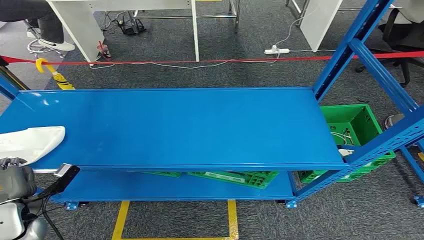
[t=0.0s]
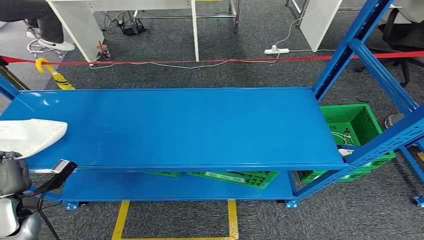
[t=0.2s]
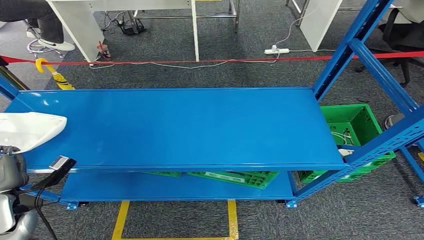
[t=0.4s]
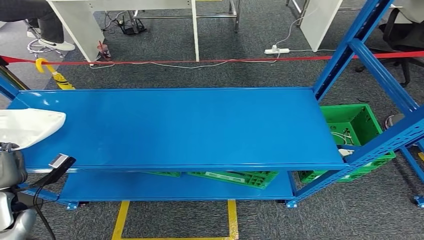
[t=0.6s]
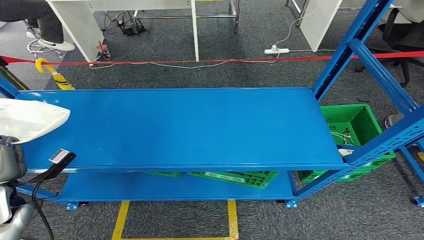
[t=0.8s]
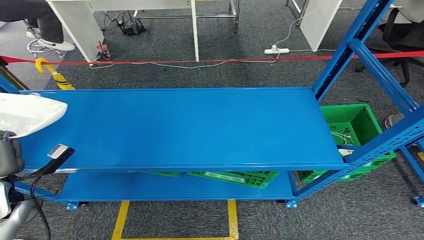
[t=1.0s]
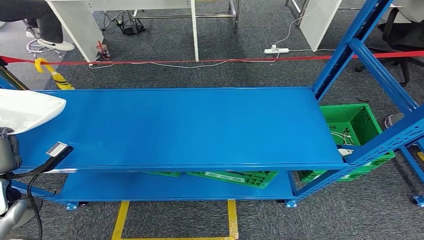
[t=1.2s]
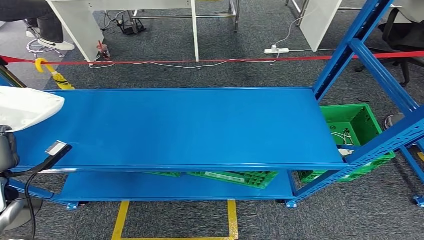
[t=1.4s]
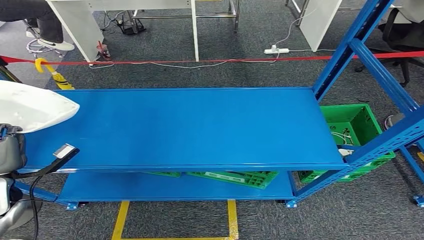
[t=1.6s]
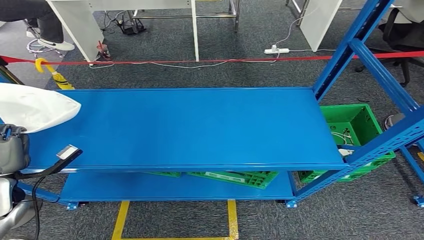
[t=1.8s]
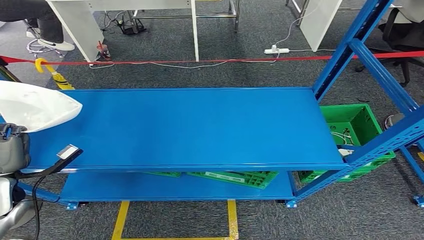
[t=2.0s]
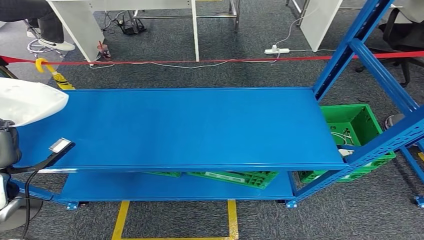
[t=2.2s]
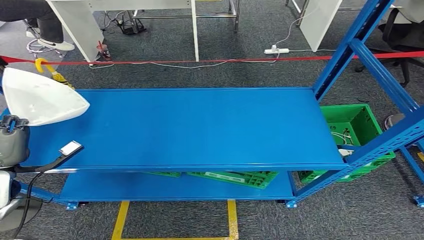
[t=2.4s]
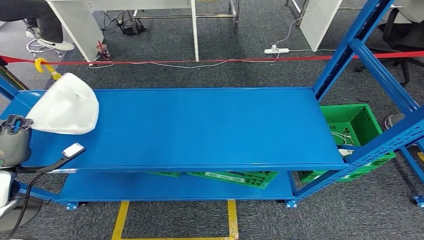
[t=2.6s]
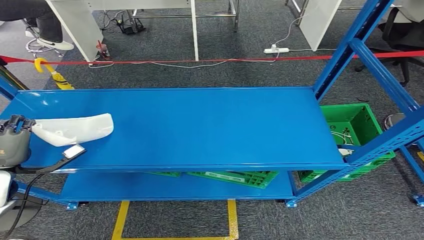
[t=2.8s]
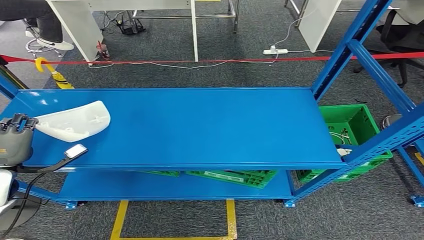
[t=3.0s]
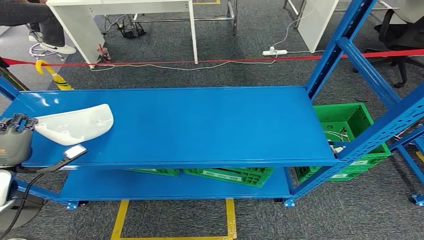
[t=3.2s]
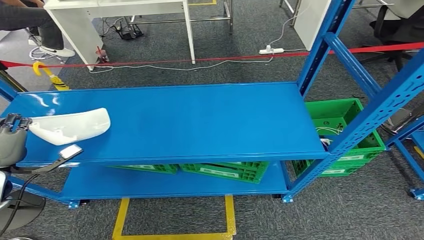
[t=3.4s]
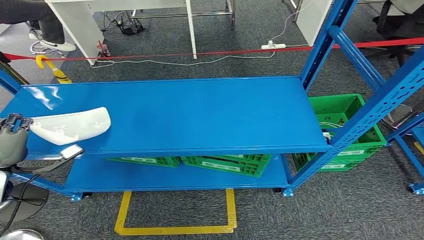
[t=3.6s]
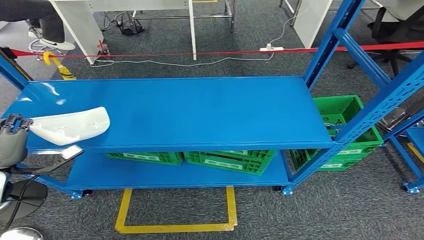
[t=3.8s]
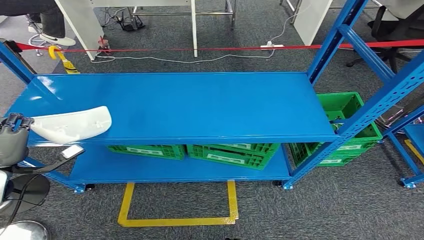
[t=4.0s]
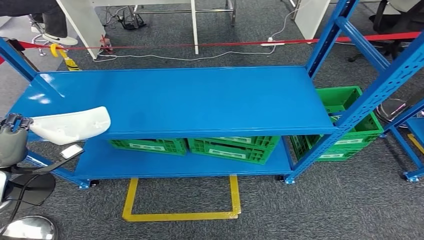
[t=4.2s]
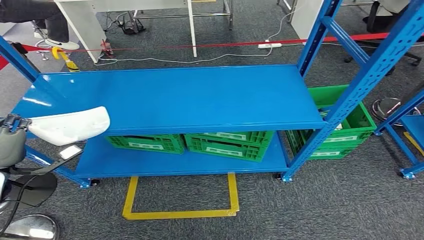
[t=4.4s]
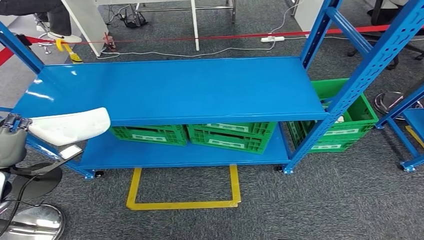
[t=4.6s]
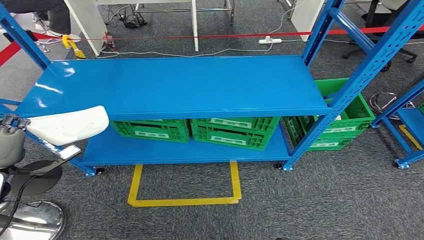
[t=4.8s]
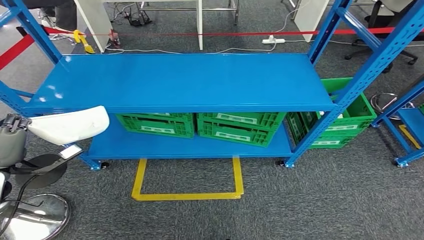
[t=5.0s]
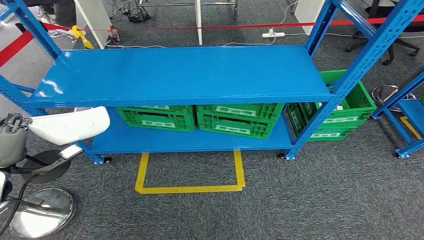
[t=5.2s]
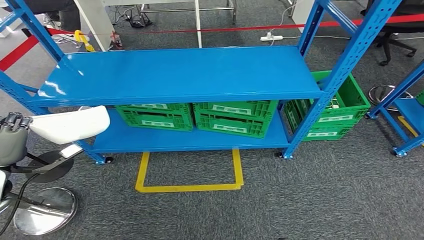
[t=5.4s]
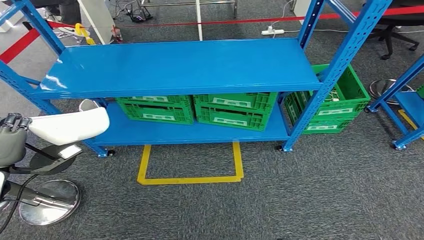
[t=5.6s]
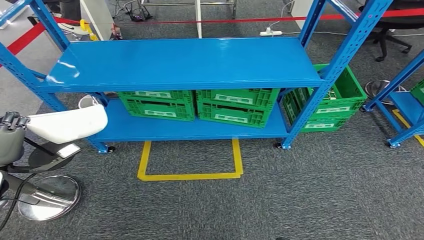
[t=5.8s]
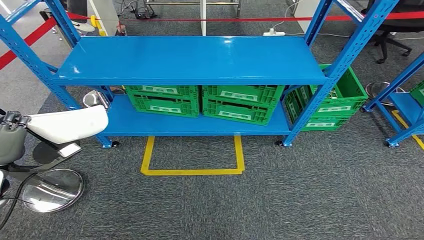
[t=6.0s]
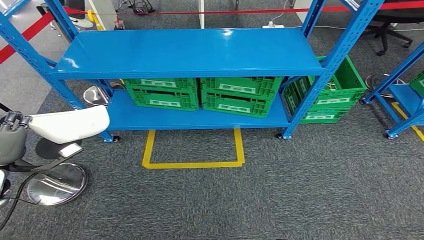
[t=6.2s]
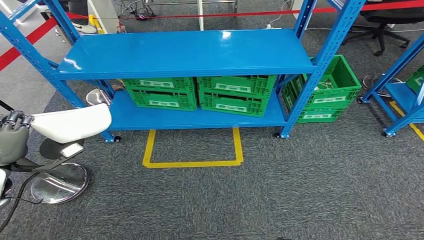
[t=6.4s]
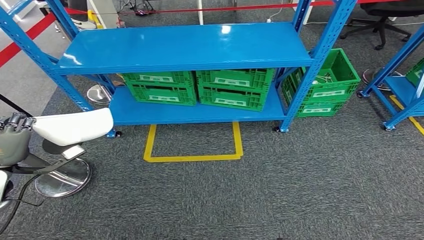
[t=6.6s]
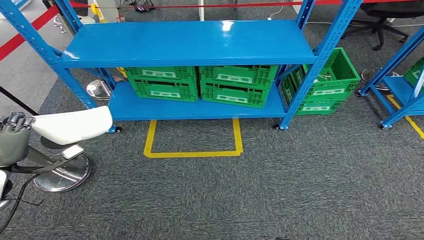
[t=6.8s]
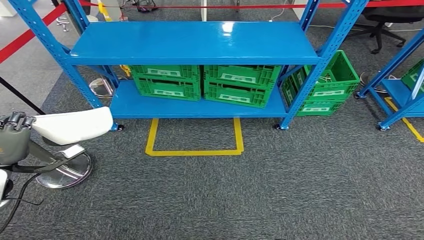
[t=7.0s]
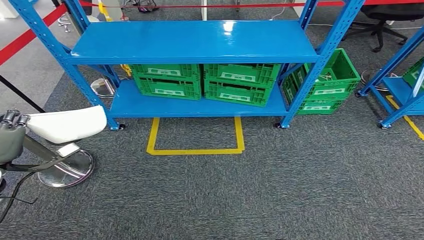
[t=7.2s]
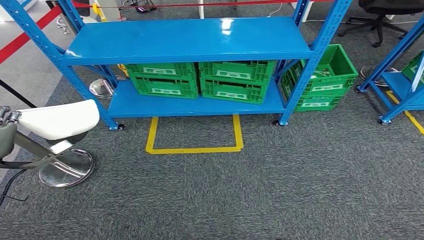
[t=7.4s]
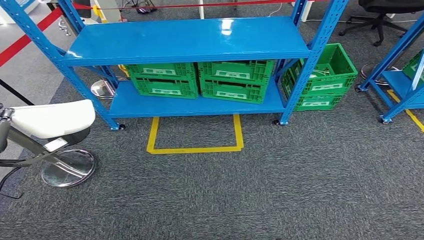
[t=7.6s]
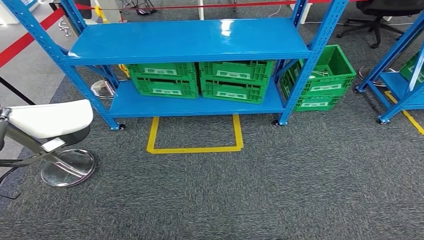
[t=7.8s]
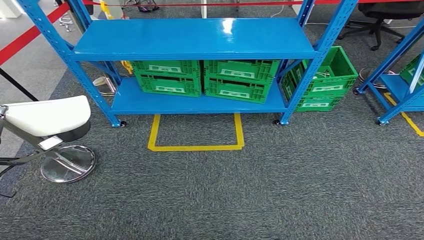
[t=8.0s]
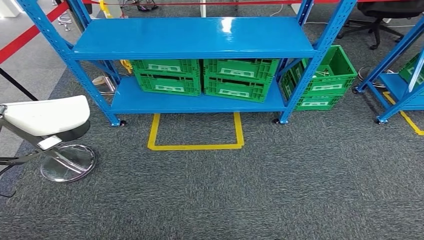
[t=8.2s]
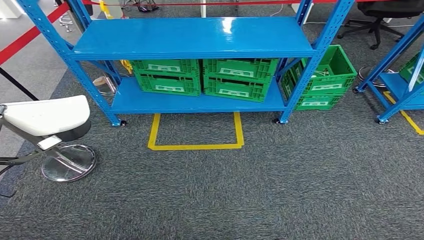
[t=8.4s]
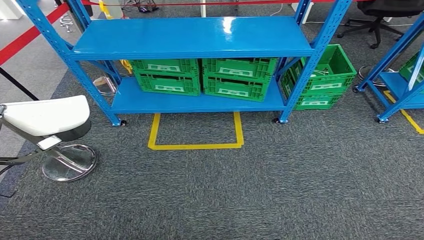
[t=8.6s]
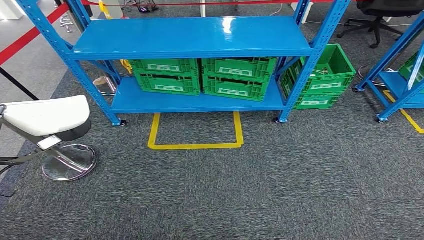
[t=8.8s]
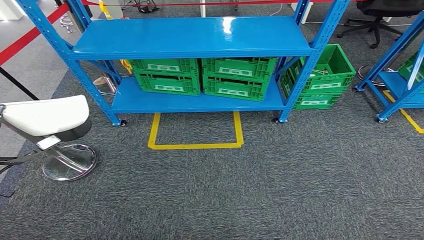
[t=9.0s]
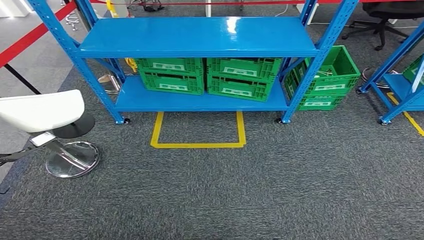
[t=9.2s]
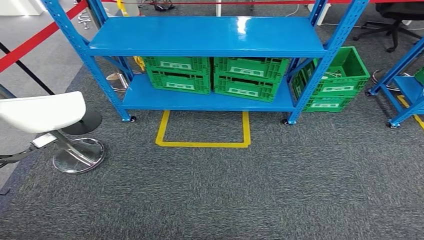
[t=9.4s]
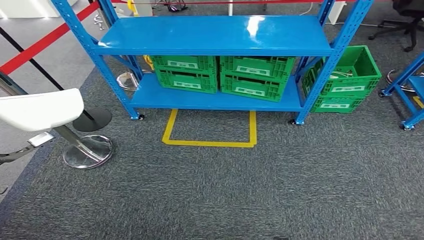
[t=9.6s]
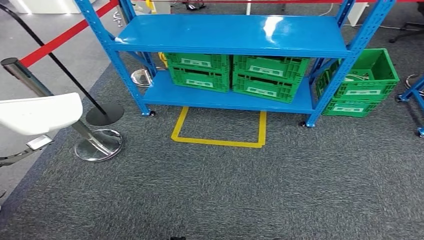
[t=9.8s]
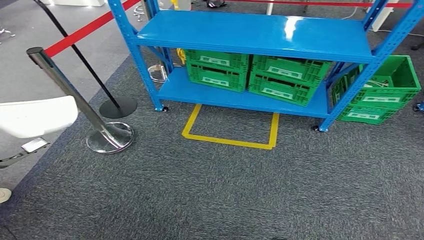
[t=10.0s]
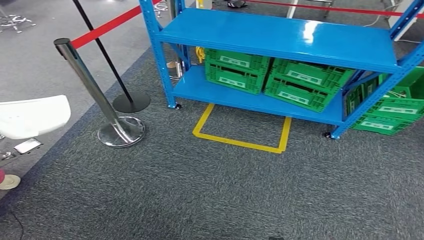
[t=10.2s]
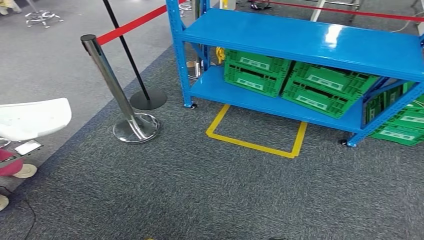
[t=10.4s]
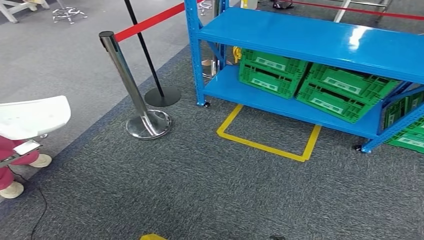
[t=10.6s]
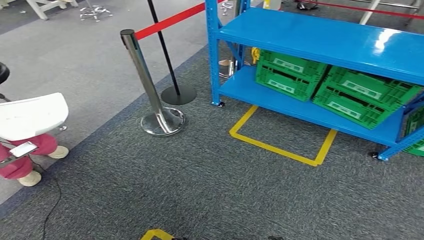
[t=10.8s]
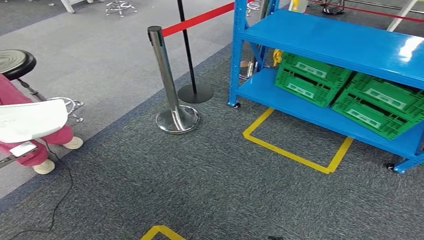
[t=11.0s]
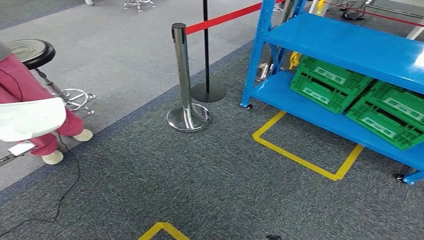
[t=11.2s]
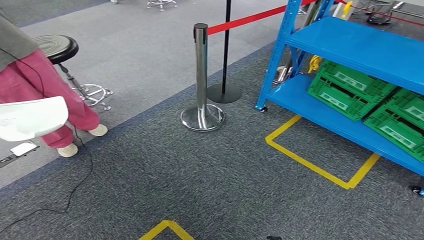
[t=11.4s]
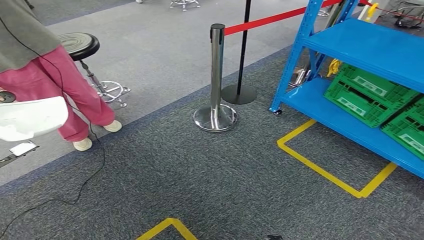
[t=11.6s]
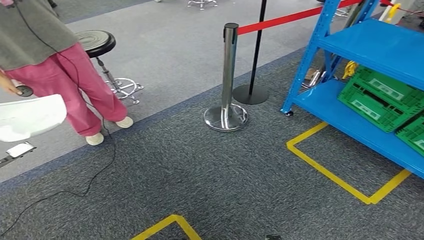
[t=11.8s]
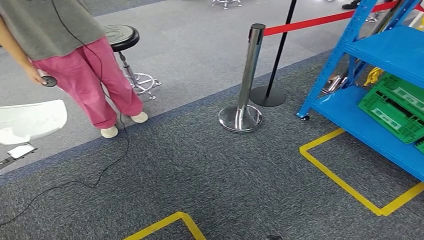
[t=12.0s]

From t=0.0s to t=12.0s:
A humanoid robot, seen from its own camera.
Step, from t=0.0s to t=3.8s: Pick up the small component from the shelf.
From t=1.6s to t=3.0s: The hands stay close to where they were, moving slightly.
From t=7.6s to t=9.0s: The hands move only a little.

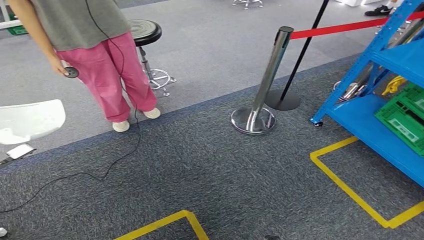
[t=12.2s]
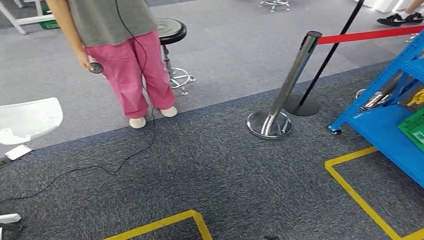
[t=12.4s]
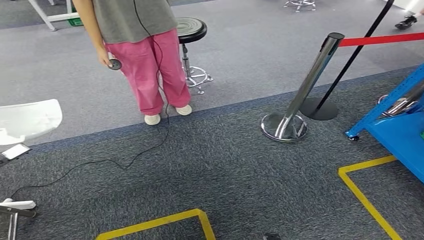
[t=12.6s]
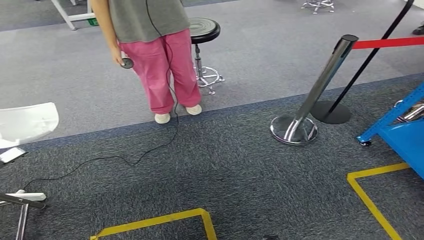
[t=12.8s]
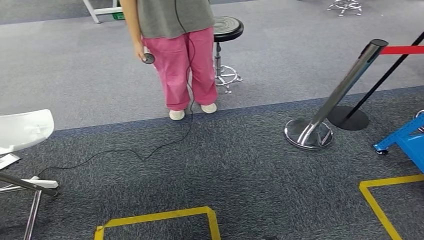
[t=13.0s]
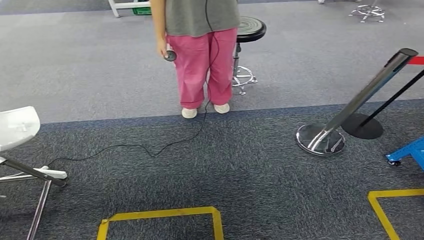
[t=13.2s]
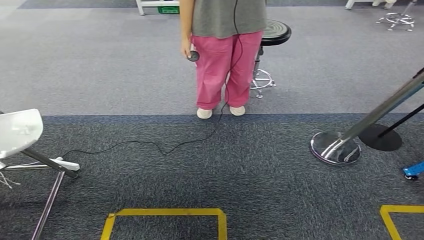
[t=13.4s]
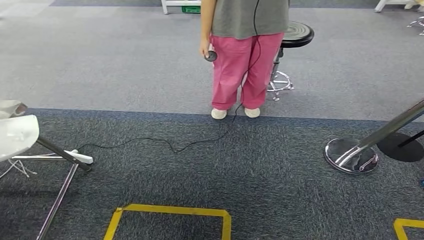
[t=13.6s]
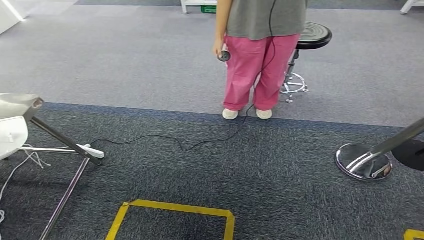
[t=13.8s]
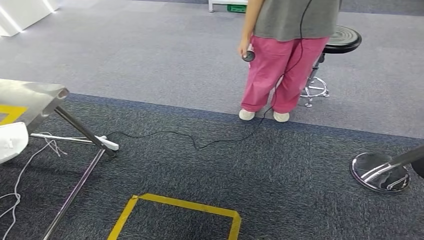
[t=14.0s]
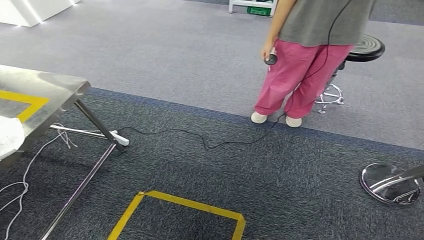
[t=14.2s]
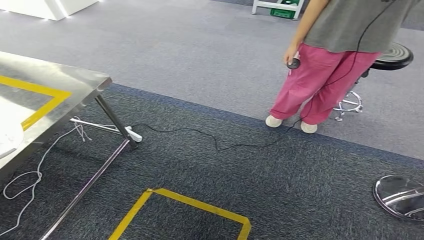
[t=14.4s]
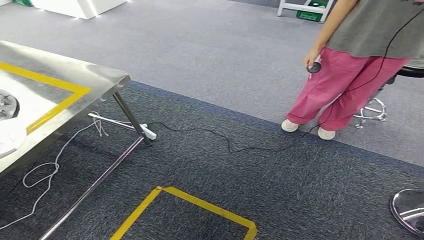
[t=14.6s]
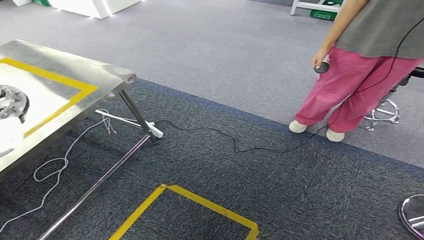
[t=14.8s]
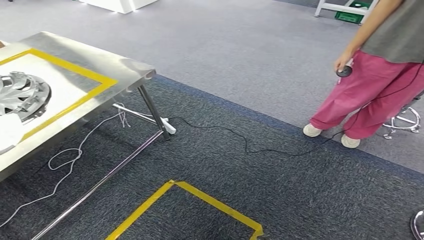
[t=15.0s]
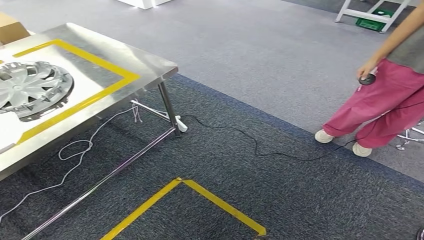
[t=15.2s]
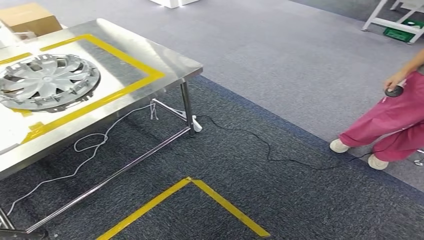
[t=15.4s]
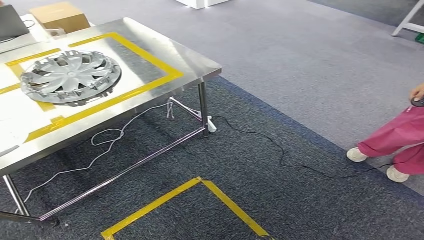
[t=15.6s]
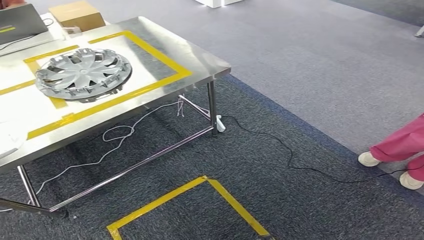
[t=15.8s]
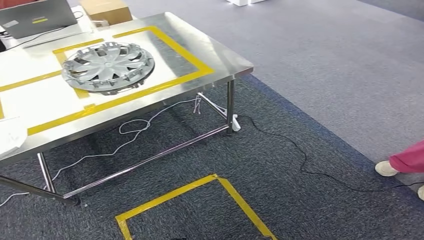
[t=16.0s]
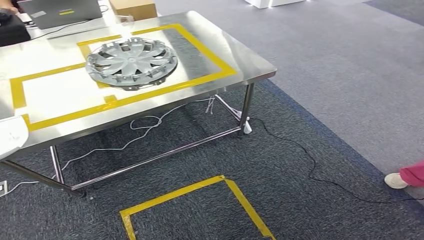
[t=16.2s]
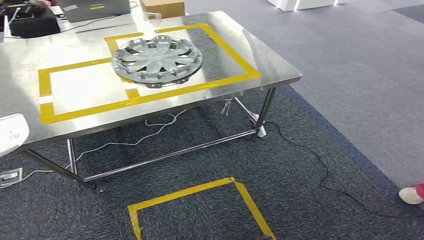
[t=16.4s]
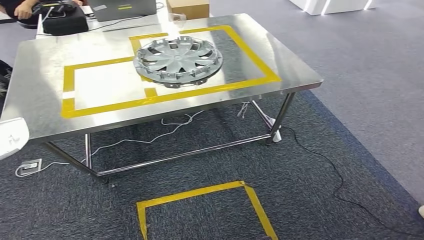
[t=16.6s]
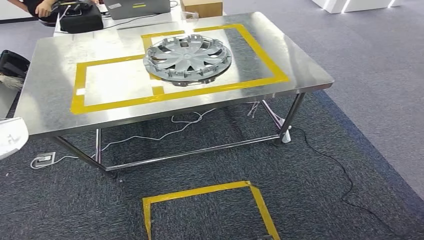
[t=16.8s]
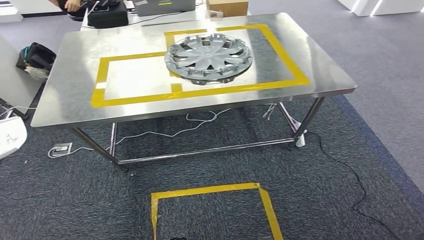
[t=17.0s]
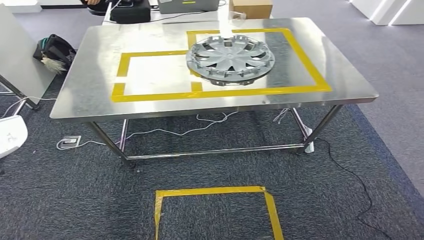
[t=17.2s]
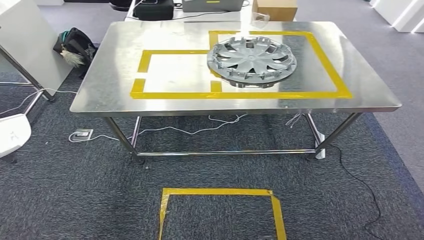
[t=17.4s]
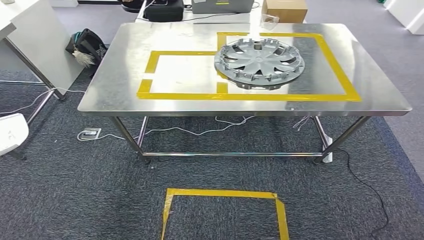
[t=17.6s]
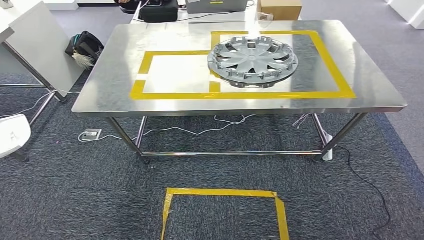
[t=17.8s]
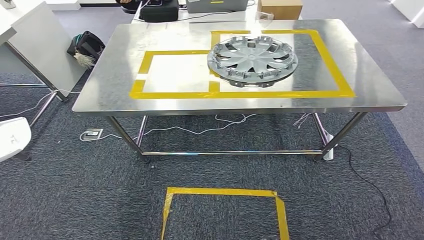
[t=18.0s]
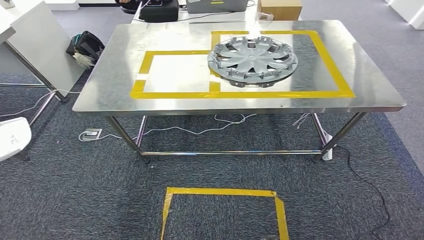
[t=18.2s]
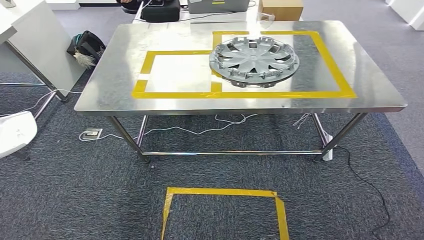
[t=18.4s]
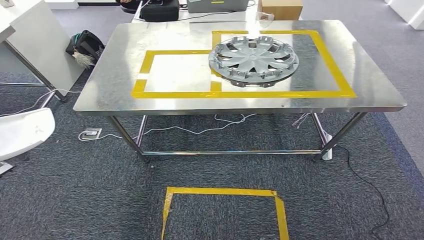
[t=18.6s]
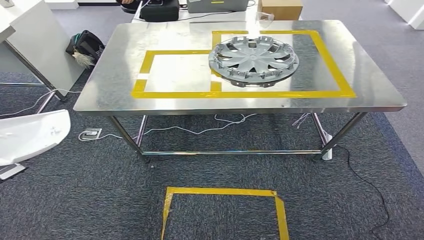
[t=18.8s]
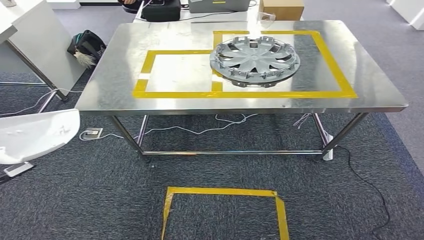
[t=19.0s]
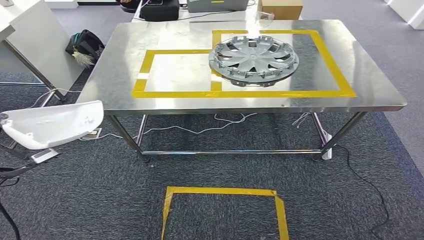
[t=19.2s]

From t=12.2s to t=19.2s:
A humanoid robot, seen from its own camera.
Step, from t=12.2s to t=18.8s: Move the small component to the workbench.
From t=17.8s to t=19.2s: The left hand is displaced forward and to the right by about 10 cm.
